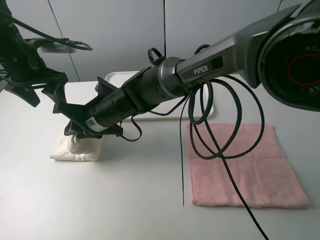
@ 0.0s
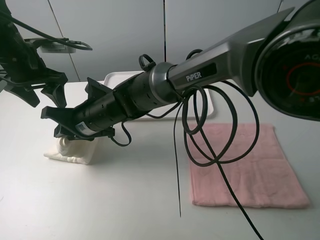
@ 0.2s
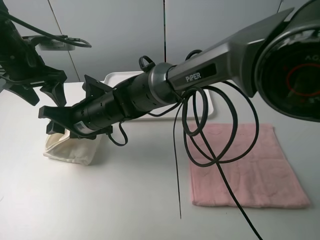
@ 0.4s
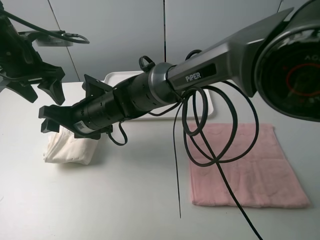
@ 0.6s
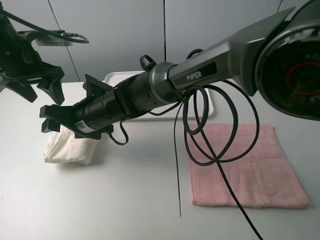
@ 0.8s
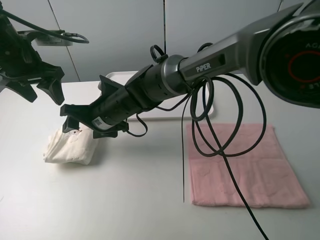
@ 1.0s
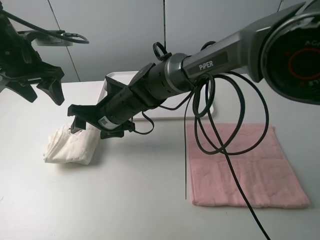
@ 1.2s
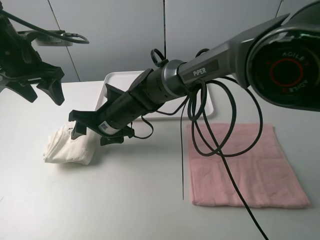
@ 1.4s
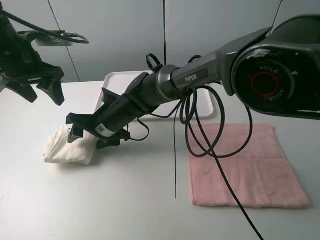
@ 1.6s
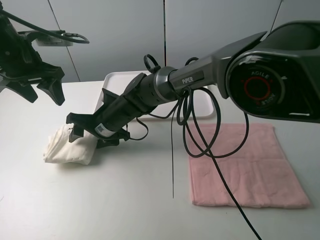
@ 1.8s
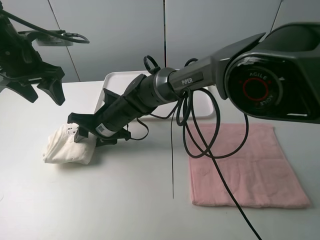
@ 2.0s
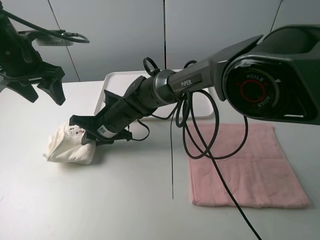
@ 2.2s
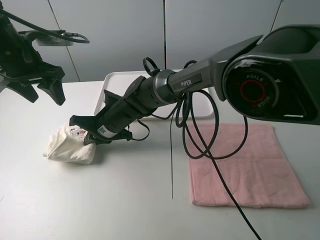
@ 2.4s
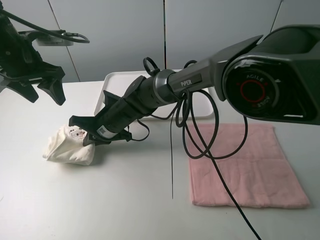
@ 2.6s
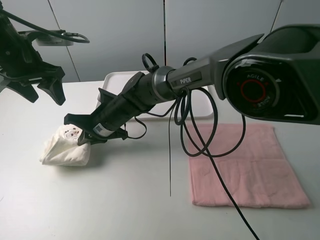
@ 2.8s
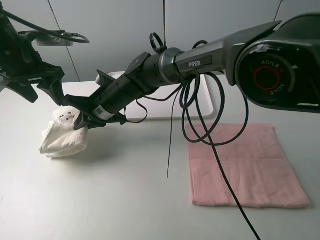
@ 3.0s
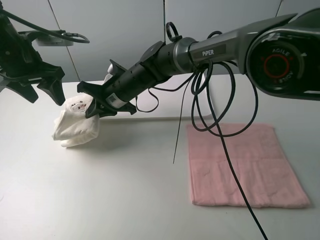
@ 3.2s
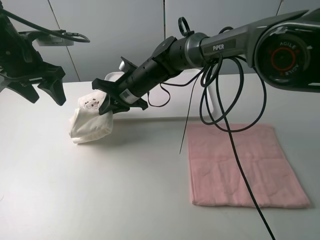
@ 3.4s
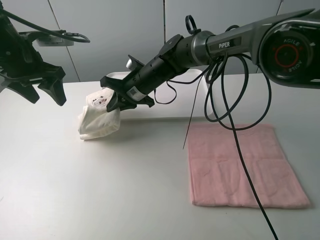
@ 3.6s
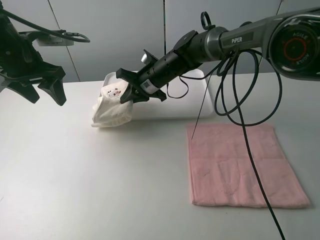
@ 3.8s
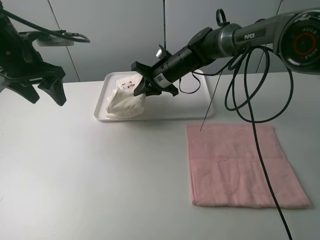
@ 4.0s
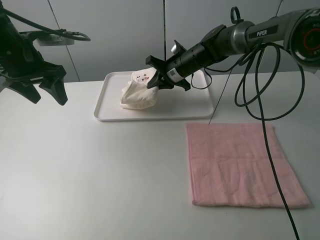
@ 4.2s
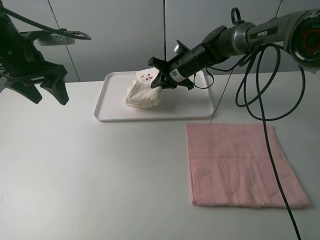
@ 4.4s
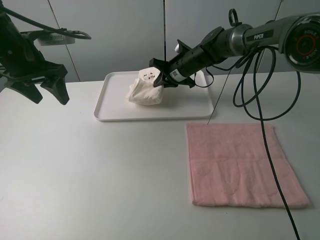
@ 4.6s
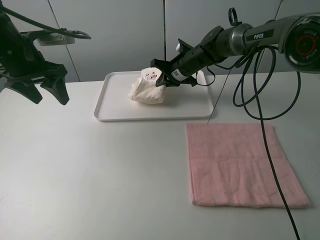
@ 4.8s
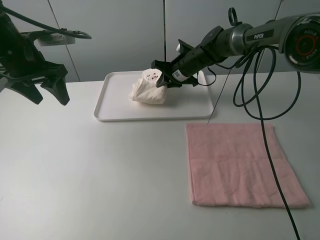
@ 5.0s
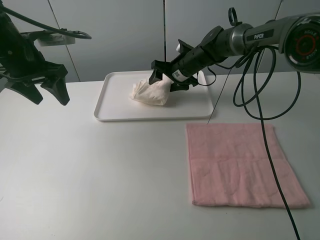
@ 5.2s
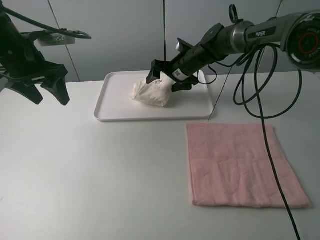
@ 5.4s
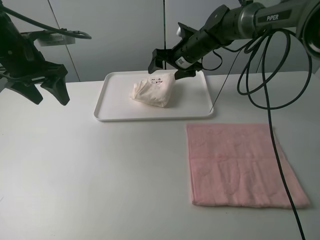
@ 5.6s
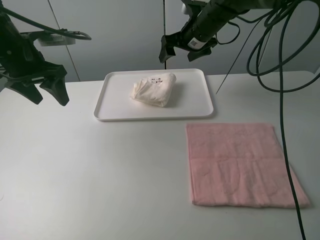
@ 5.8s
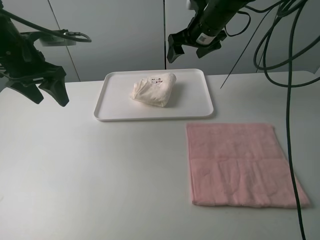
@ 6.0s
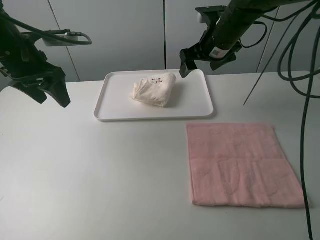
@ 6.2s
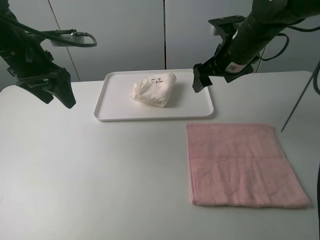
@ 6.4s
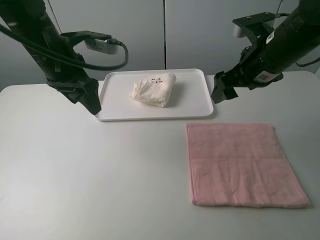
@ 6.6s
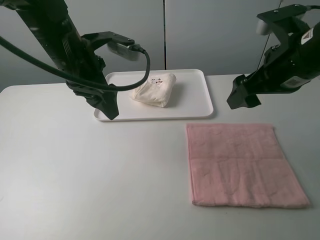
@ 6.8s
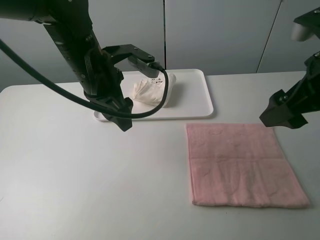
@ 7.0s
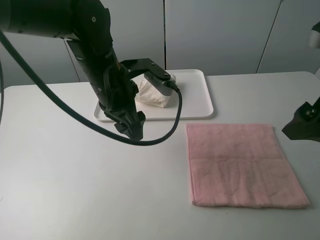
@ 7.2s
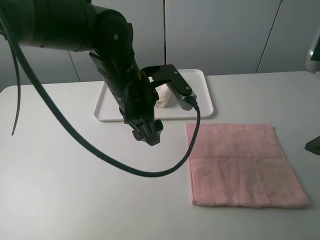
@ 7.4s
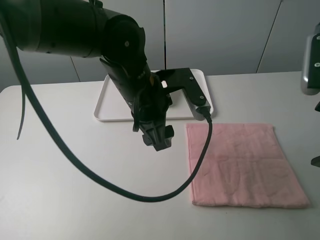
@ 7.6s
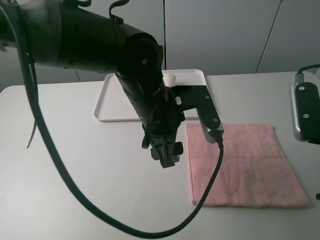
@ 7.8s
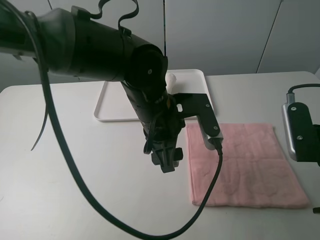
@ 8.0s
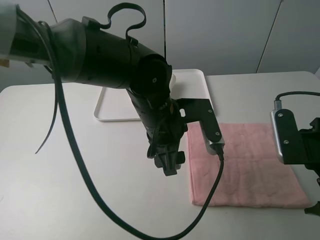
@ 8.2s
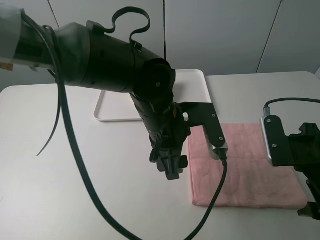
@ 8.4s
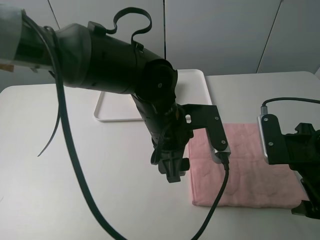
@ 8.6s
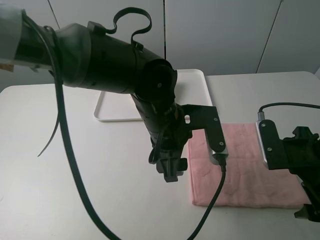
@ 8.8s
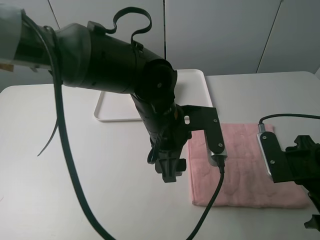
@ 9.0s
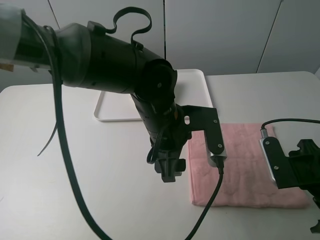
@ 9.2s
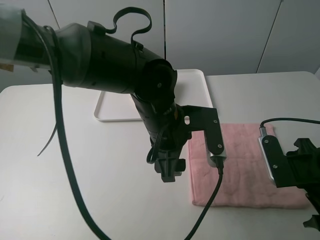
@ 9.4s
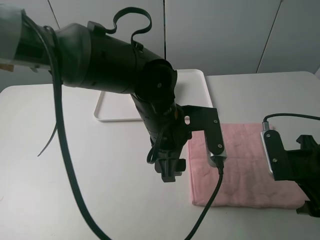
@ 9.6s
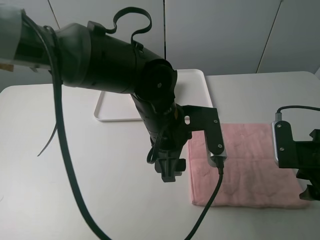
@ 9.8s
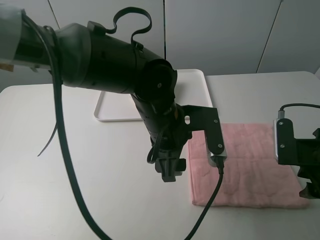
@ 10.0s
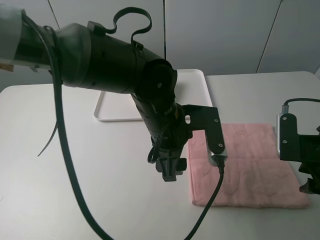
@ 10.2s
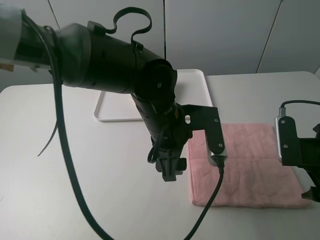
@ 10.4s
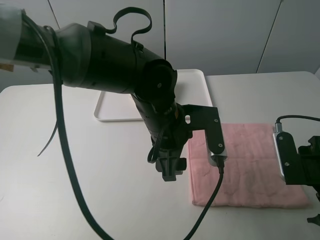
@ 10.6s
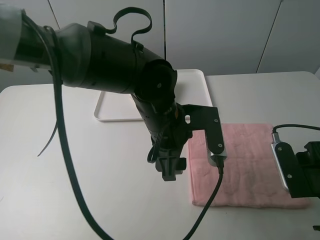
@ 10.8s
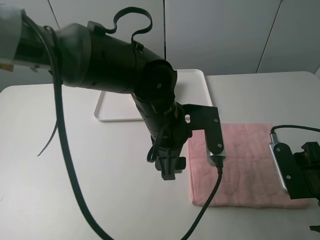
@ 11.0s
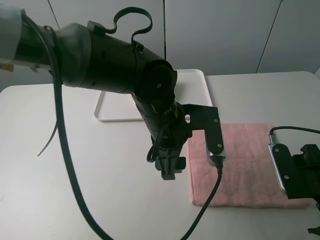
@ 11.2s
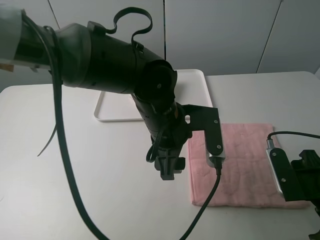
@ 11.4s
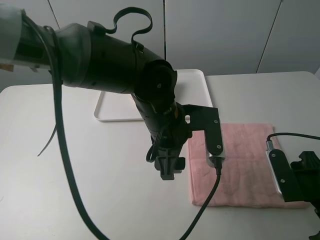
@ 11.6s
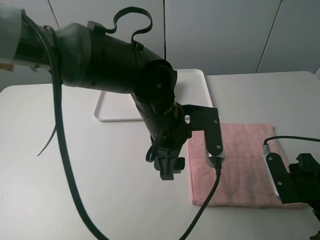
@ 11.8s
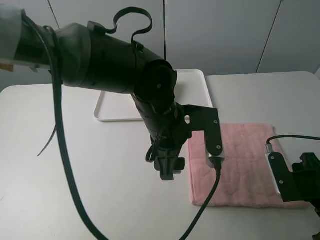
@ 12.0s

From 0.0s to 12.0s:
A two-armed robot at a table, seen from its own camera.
Task of the whole recording: fold one of the towels by two grippers and place it on the tray,then fold another towel by two grippers and place it on the folded towel.
Step, from 1.4s to 2.6s: Grasp the white towel with the right gripper.
Step, from 2.8s to 5.6s: Move the white towel to the plate with the right gripper.
From 0.0s to 1.6s: The right gripper opens up.
From 1.6s to 3.0s: The right gripper closes its fingers.
From 3.0s to 4.4s: The right gripper goes some 20 cm to the right and forward.
From 4.4s to 6.0s: The right gripper moves upward, approximately 10 cm, and opens up.
From 6.0s to 7.6s: The right gripper is displaced backward and to the right by approximately 30 cm. The left gripper travels to the right by about 25 cm.
From 7.6s to 9.0s: The left gripper changes place by approximately 5 cm; the right gripper shifts some 10 cm downward.
From 9.0s to 12.0s: There are only small adjustments of the grippers.

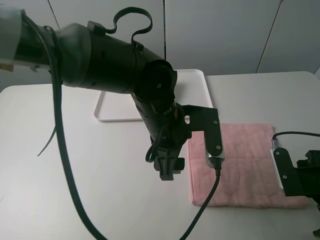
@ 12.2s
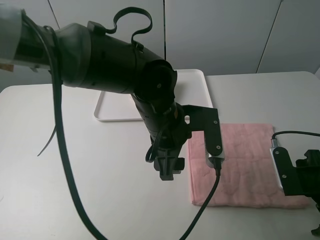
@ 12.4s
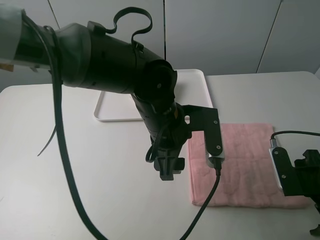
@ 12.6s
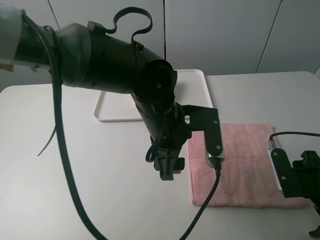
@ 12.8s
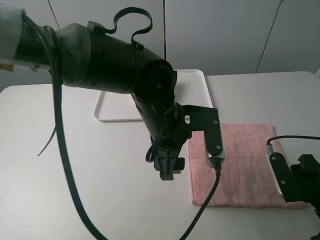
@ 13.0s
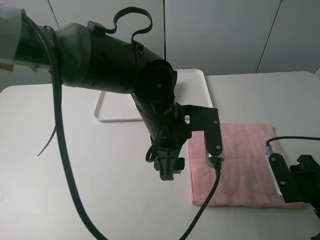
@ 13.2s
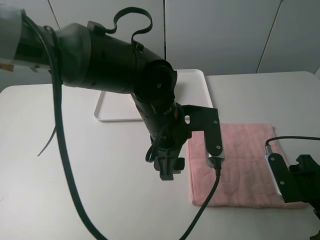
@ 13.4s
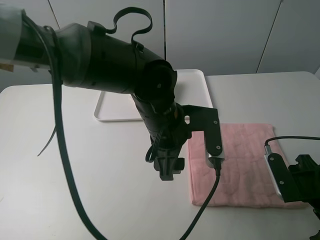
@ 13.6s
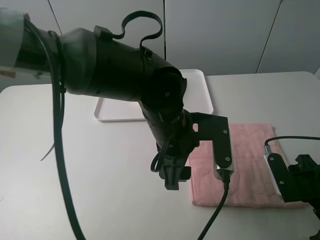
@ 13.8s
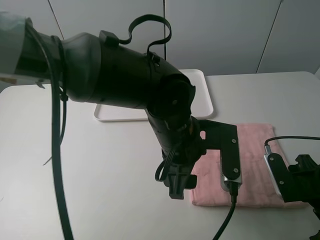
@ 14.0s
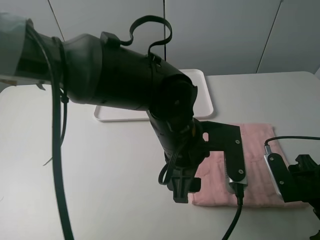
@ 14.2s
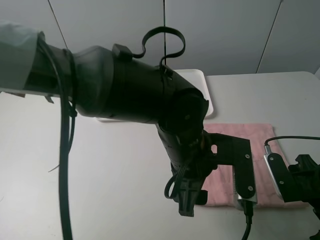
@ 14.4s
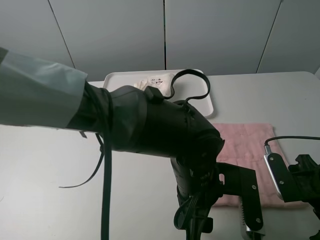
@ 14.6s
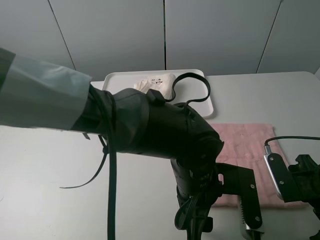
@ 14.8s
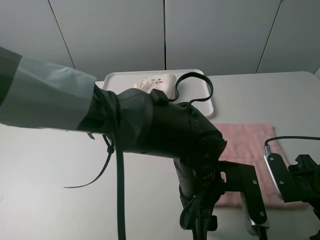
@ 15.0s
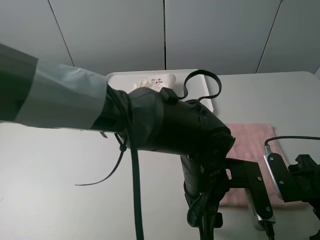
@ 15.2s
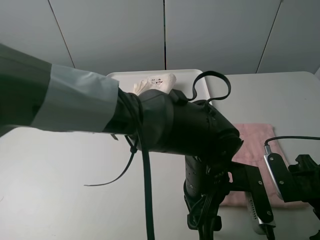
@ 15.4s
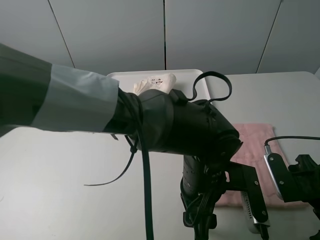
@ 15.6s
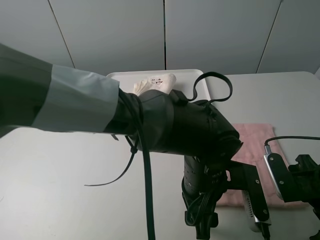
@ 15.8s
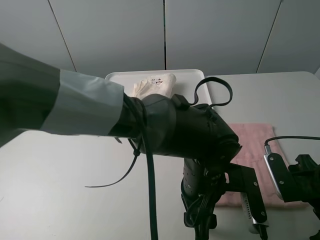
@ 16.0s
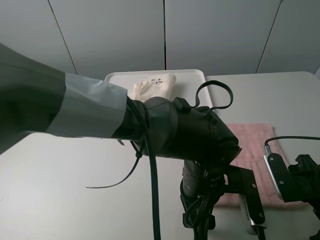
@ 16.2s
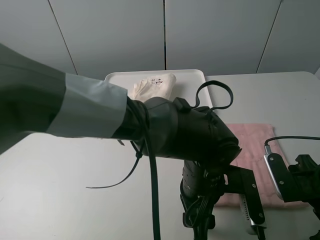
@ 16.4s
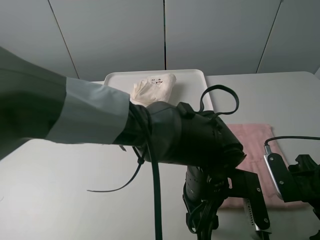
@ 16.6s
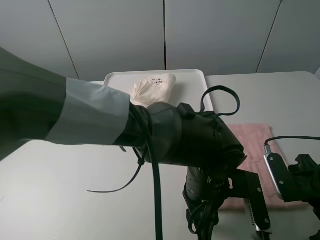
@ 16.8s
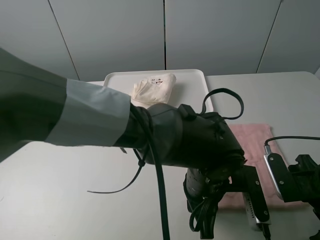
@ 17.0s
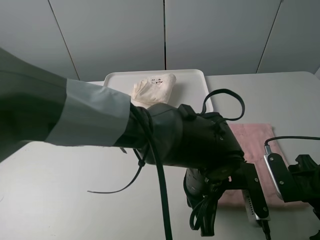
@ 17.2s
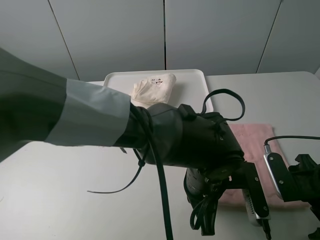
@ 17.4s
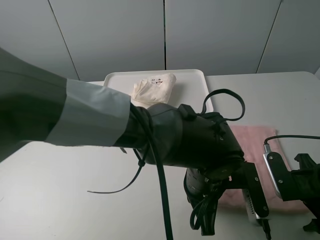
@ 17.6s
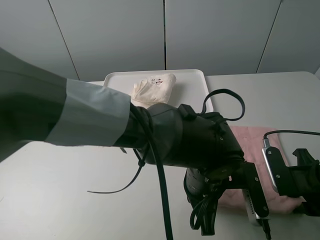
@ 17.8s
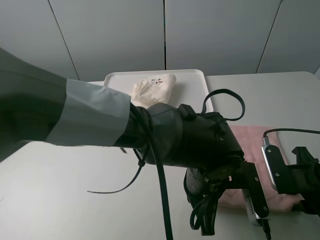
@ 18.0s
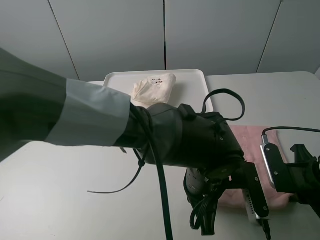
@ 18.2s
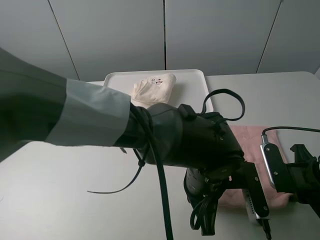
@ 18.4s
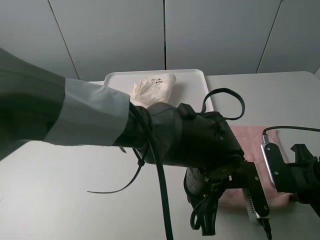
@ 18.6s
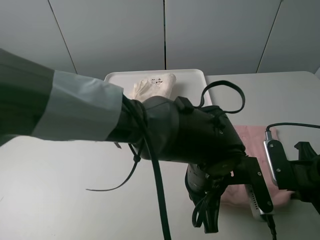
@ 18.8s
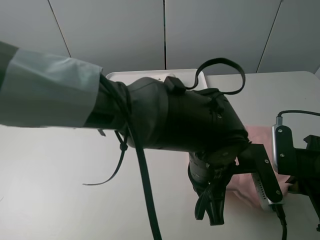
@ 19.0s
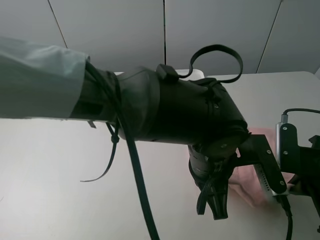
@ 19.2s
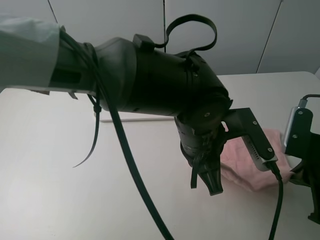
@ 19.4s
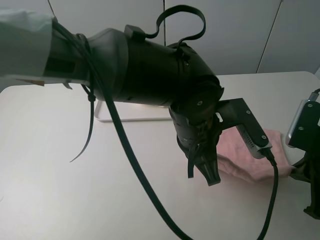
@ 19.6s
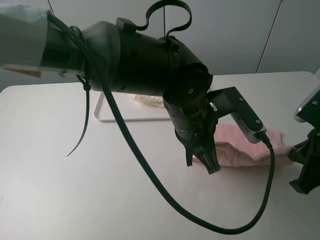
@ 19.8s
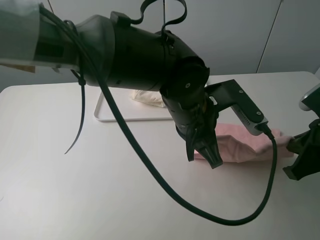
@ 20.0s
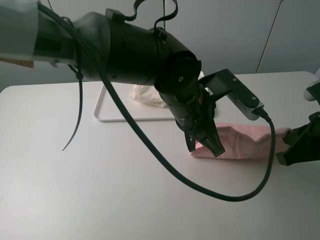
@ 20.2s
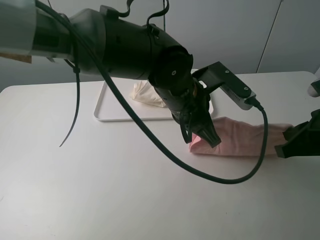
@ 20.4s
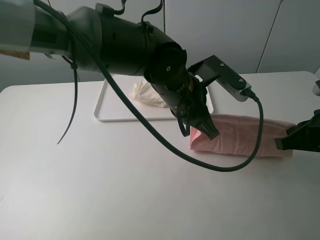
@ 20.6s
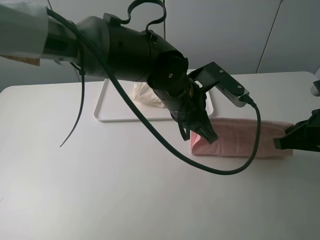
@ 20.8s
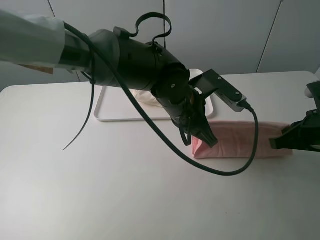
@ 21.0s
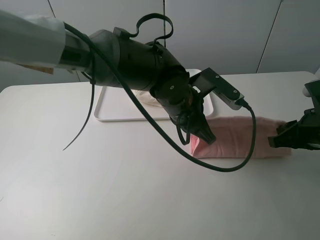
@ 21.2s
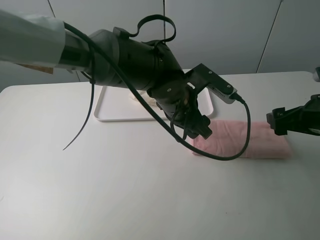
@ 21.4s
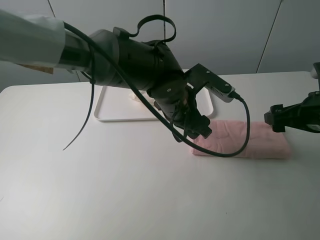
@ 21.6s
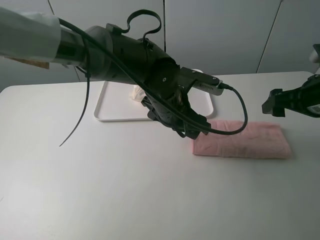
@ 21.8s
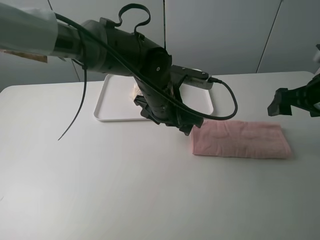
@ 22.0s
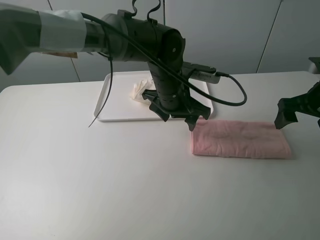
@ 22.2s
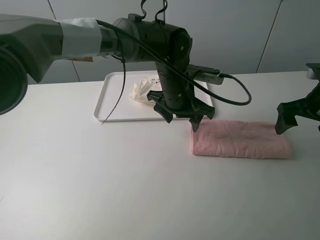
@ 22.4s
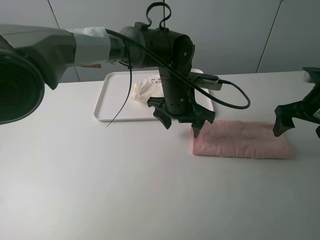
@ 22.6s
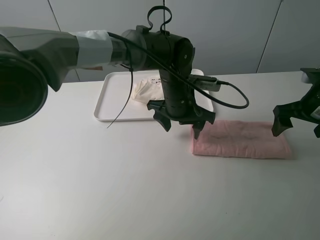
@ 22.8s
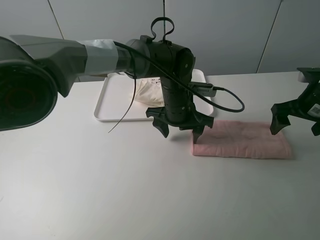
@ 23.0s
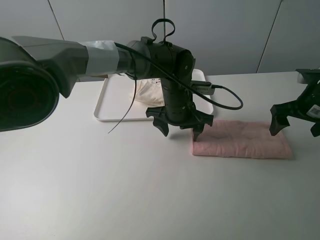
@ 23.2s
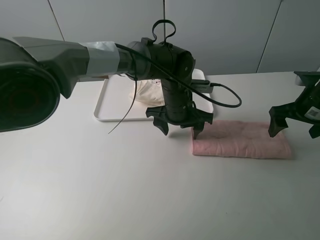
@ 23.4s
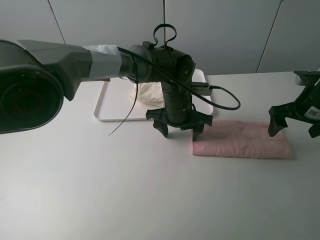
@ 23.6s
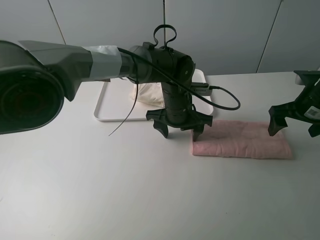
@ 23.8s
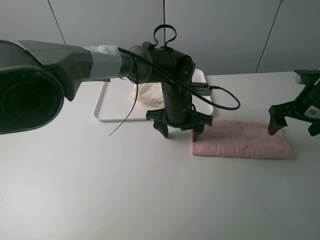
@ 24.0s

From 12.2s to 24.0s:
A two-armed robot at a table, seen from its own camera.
Task of the whole recording: fold one of the towels by two grippers and place it on the tray,then fold another towel by two grippers and place it on the folded towel.
Step, from 12.2s to 18.4s: Grasp the pink towel with the left gripper.
Step, from 18.8s to 21.4s: Fold the pink towel upwards with the left gripper.
Step, from 21.8s to 23.8s: Press the pink towel with the left gripper.
From 12.2s to 13.6s: There are only small adjustments of the grippers.
From 13.6s to 15.2s: The left gripper heads backward and to the right, covering roughly 10 cm.
From 15.2s to 16.6s: There are only small adjustments of the grippers.
From 16.6s to 18.2s: The right gripper closes up. The left gripper closes its fingers.
From 18.2s to 19.6s: Both grippers move upward, roughly 5 cm.
From 19.6s to 21.0s: The two grippers go some 5 cm forward.
From 21.0s to 22.6s: The two grippers go approximately 5 cm forward. The left gripper opens, while the right gripper opens its fingers.
From 22.6s to 24.0s: There are only small adjustments of the grippers.
